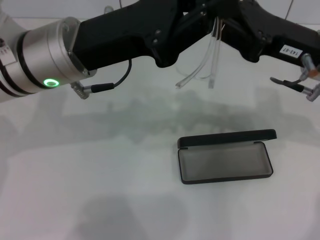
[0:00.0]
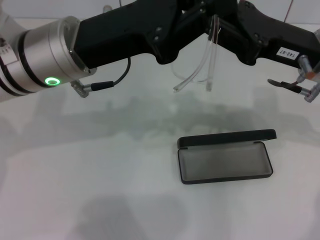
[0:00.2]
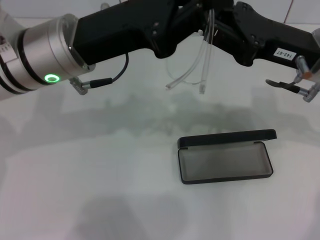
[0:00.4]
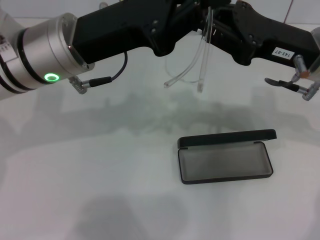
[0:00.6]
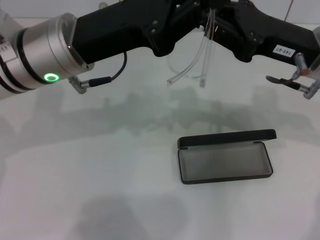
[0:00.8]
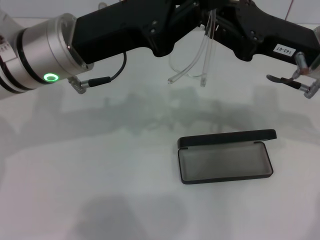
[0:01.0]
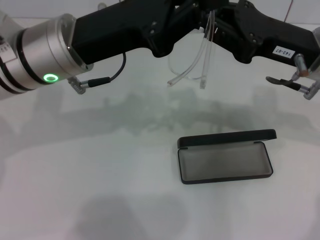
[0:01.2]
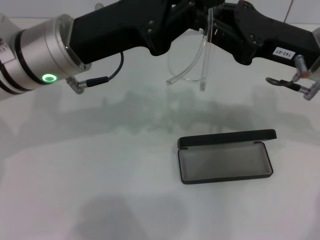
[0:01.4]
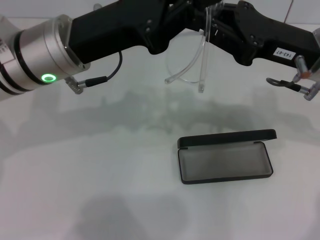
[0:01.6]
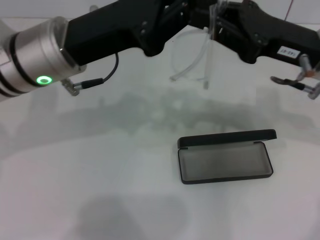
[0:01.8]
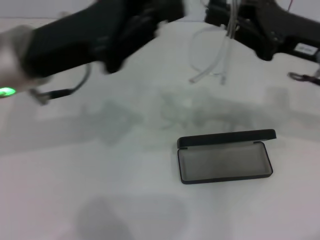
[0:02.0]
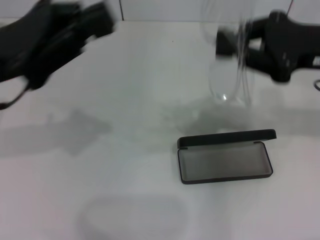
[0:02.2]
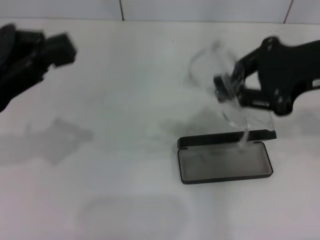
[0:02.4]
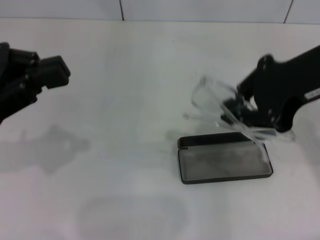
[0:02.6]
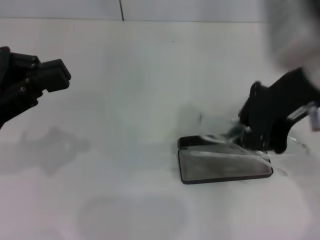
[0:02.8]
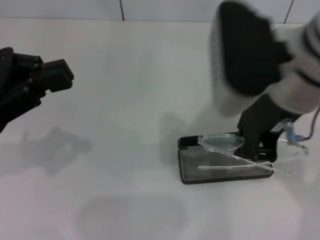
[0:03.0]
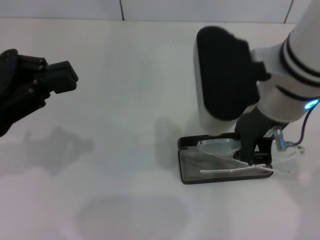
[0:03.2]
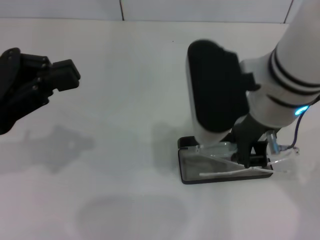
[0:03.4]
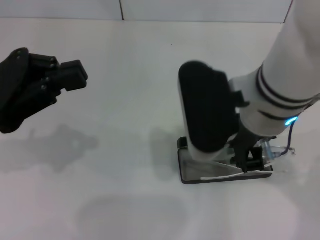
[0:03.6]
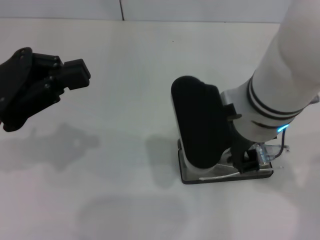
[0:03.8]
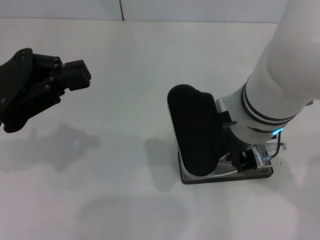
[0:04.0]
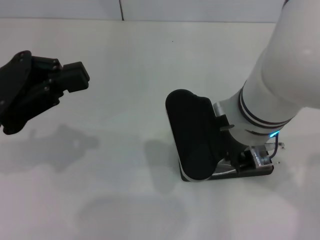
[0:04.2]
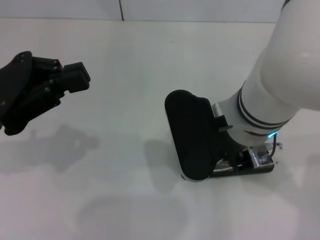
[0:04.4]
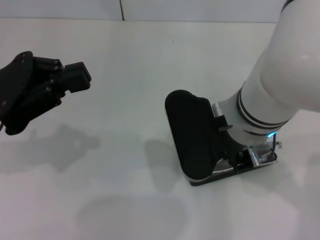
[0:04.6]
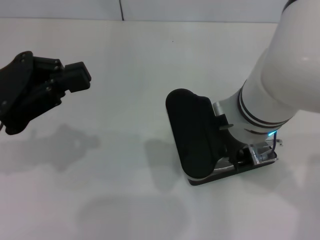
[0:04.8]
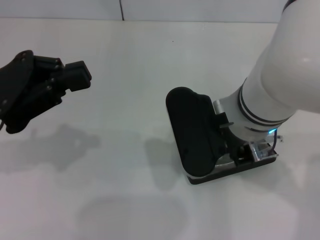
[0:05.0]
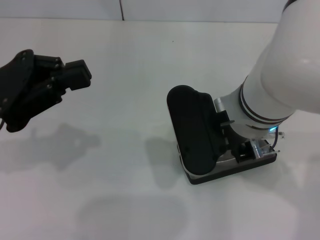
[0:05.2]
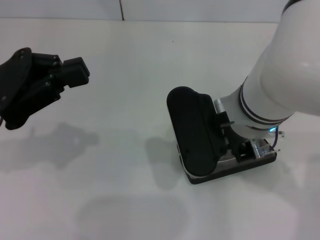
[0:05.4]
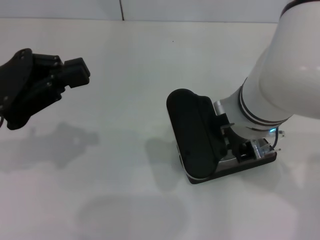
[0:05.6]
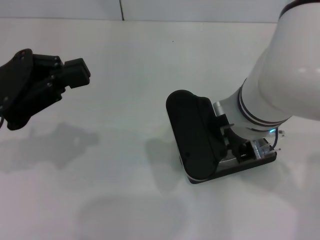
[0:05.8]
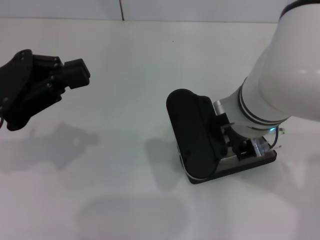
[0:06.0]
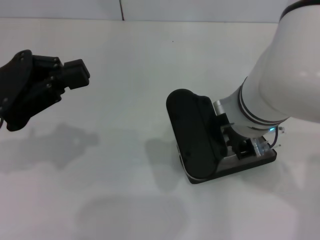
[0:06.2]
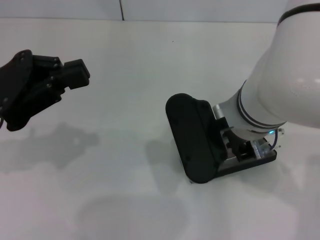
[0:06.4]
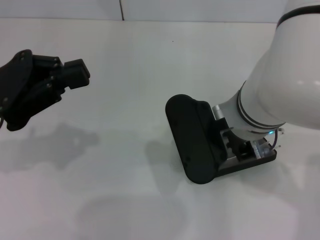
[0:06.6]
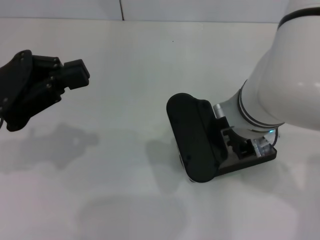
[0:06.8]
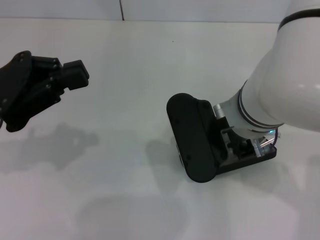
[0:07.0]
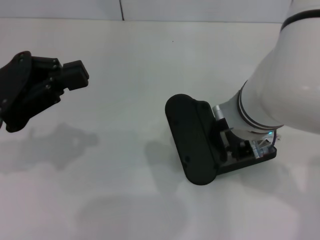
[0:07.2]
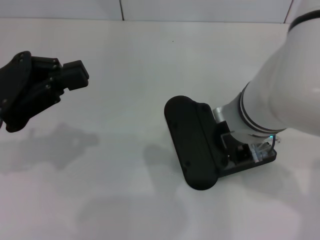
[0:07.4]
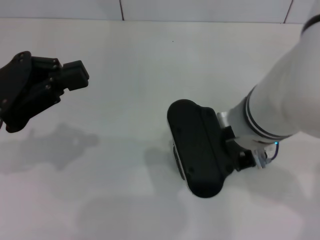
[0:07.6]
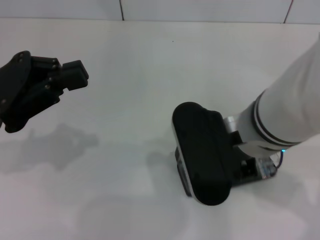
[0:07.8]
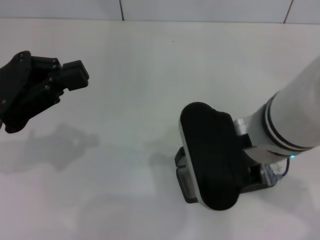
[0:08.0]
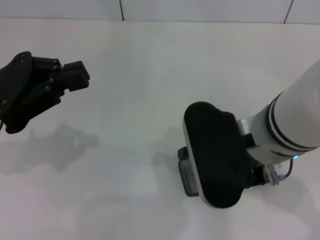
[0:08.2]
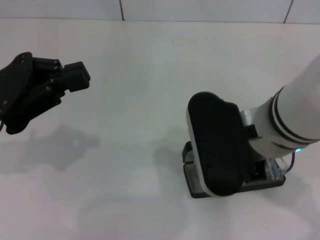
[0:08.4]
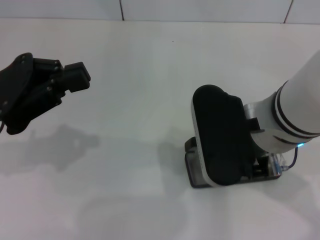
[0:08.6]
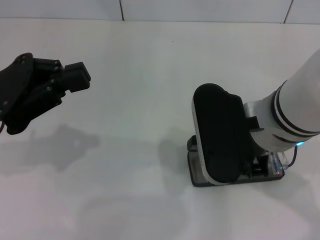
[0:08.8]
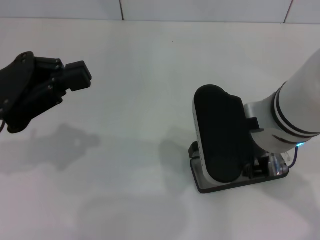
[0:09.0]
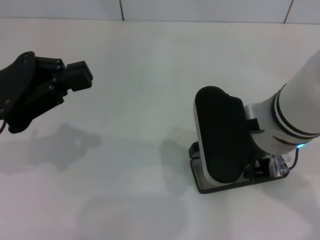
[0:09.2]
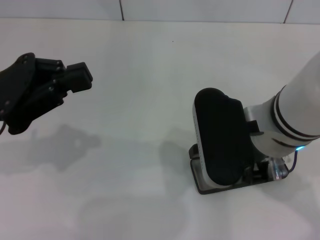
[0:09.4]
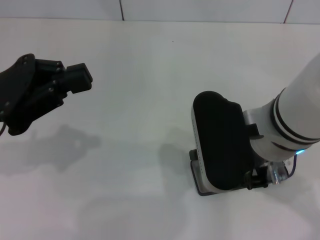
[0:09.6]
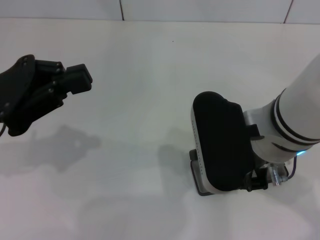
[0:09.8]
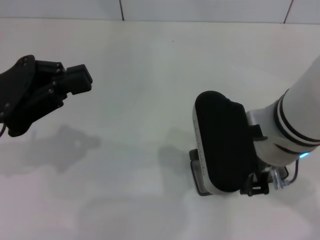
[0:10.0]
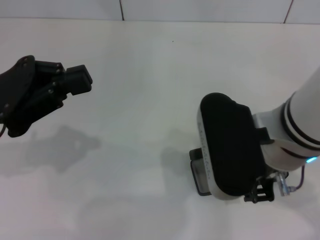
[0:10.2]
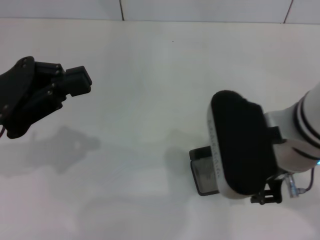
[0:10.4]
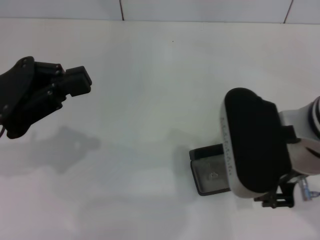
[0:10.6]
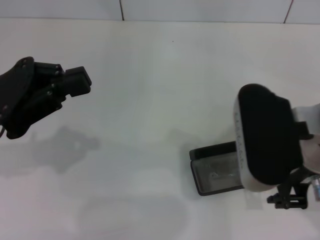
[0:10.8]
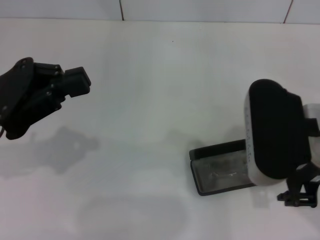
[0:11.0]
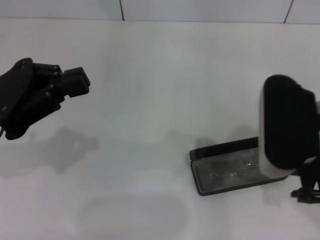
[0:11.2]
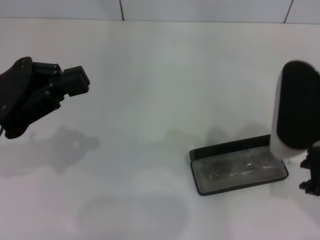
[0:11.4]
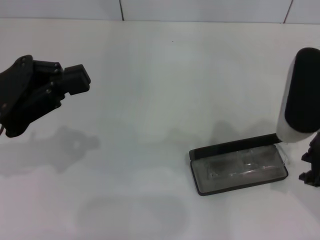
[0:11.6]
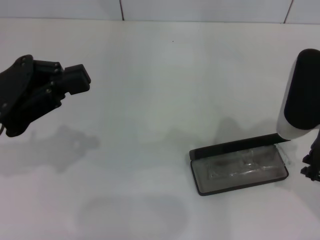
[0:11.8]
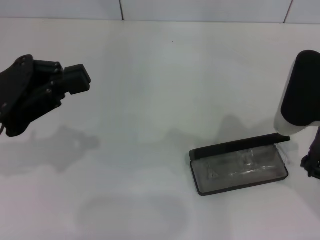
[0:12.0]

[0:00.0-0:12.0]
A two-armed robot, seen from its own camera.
0.0 to 1.6 s: The grippers stay close to where they were, moving slightly.
1.6 to 3.0 s: The left gripper is displaced to the left and backward by approximately 15 cm, while the right gripper is displaced to the left, upward and backward by about 15 cm.
3.0 to 4.4 s: The right gripper moves downward, roughly 5 cm.
4.4 to 10.4 s: The grippers stay close to where they were, moving slightly.
10.4 to 12.0 s: The right gripper travels to the right by approximately 10 cm.

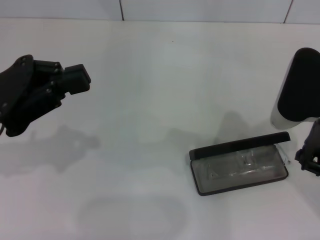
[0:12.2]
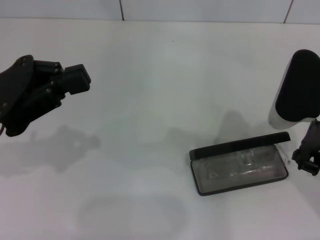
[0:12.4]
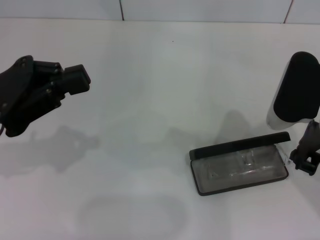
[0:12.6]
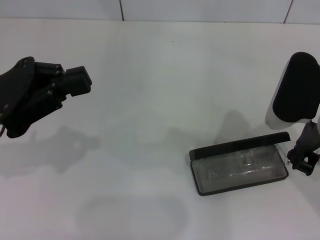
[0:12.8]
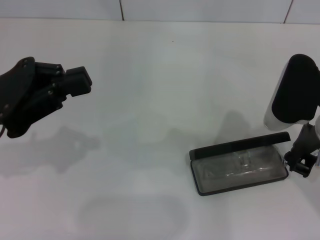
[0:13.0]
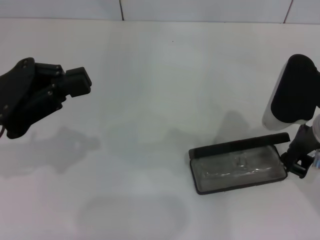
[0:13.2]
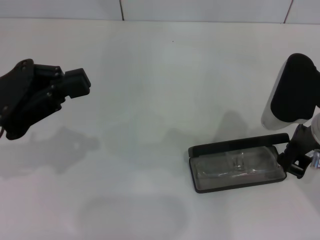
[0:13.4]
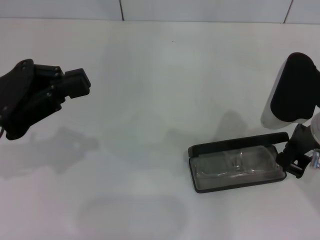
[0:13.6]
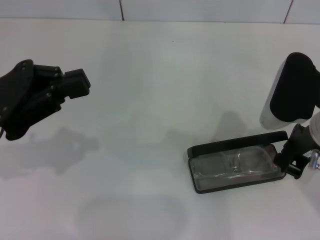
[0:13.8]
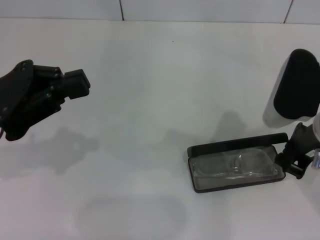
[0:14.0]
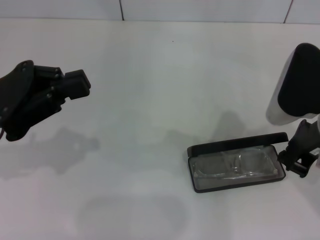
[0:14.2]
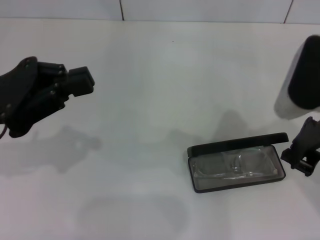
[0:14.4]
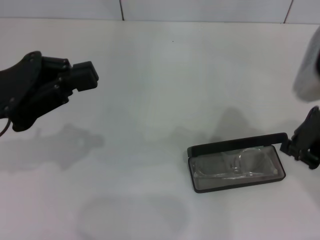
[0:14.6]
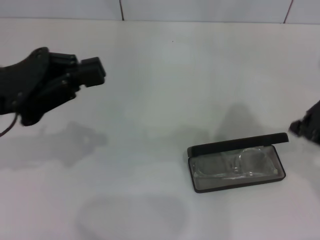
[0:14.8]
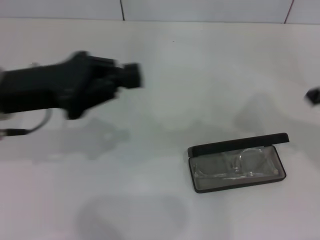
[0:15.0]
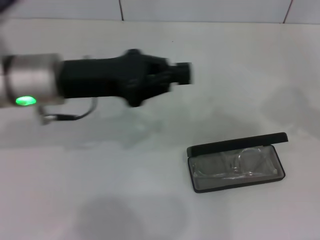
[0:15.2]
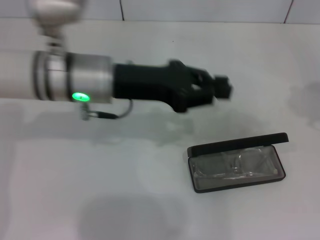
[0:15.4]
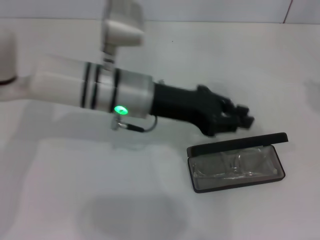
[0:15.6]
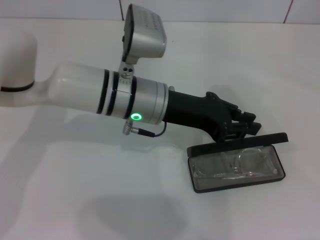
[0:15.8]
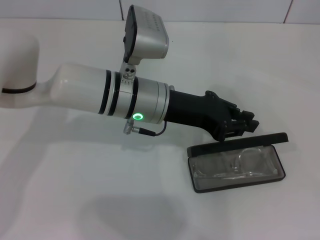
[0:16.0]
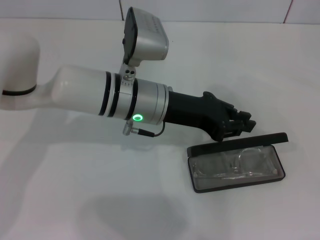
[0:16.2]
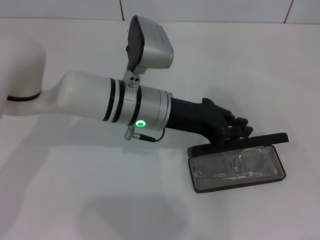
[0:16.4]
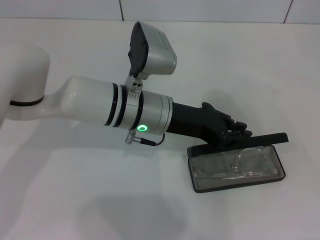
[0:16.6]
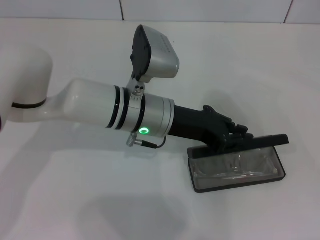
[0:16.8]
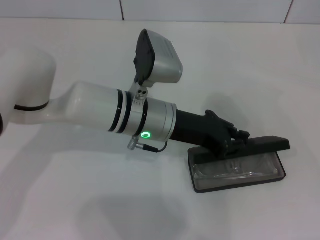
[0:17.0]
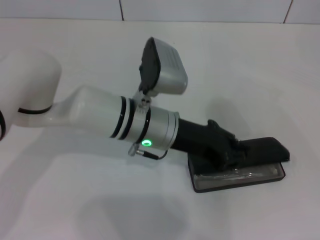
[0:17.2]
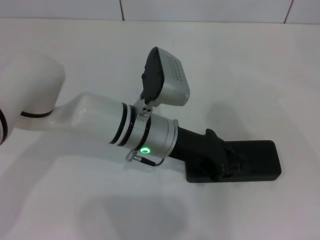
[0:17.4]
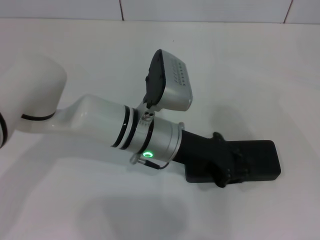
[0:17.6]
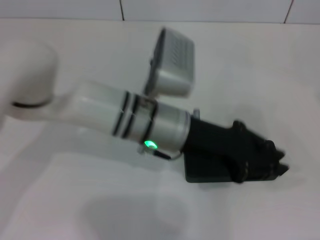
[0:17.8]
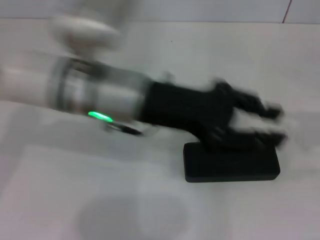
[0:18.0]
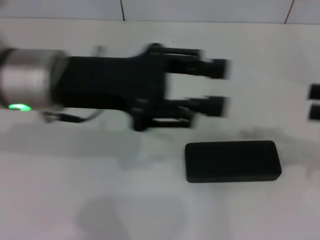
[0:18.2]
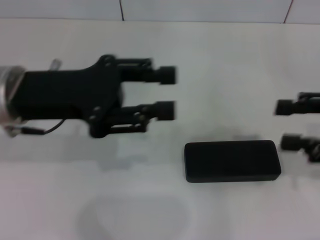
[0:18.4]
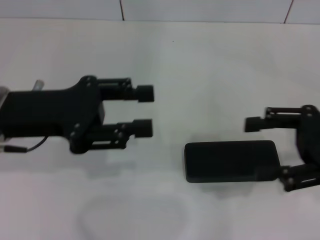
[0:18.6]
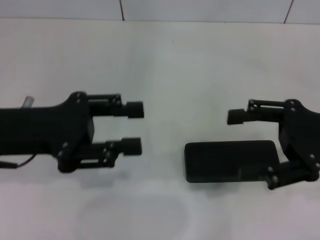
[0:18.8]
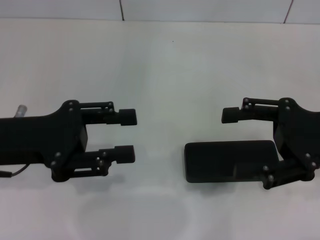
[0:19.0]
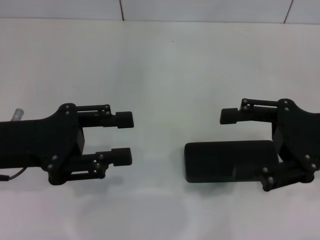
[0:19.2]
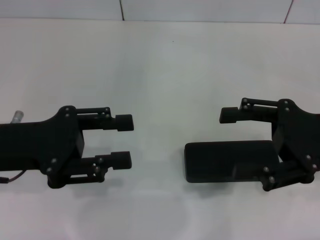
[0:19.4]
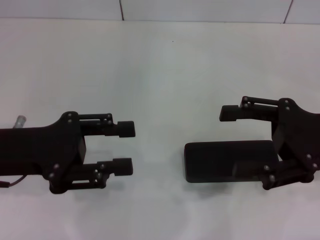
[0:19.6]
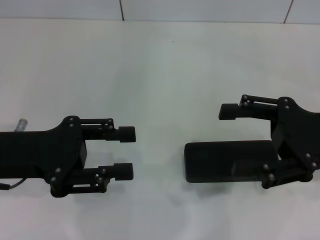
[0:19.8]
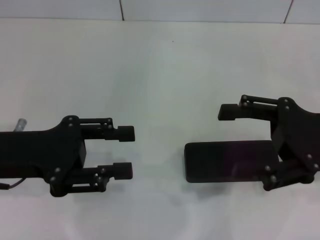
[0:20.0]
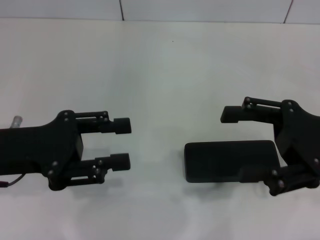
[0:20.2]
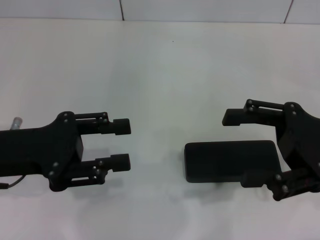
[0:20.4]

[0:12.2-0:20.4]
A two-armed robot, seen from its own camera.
Step, 12.2 to 14.2 s: Put the glasses into the case with your right hand.
Step, 14.6 to 17.2 s: Close the glasses case with your left hand.
12.2 to 13.8 s: The grippers make only small movements.
13.8 to 15.4 s: The left gripper goes roughly 20 cm to the right and forward; the right gripper goes some 20 cm to the right and upward.
15.4 to 17.2 s: The left gripper heads to the right and downward, covering some 10 cm, while the right gripper is displaced to the right by some 10 cm.
17.2 to 18.8 s: The left gripper is displaced to the left by about 20 cm, and opens, while the right gripper shifts about 20 cm to the left and downward, and opens.
18.8 to 20.4 s: There are only small adjustments of the grippers.

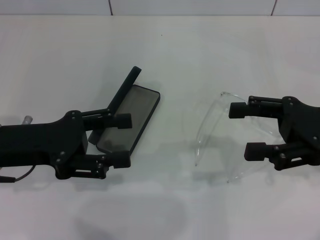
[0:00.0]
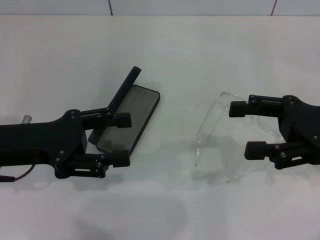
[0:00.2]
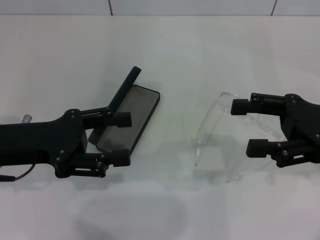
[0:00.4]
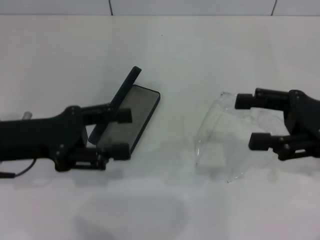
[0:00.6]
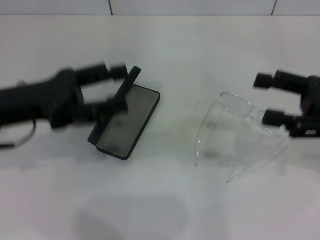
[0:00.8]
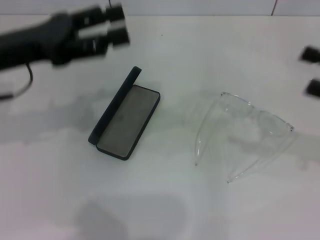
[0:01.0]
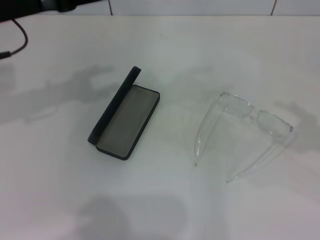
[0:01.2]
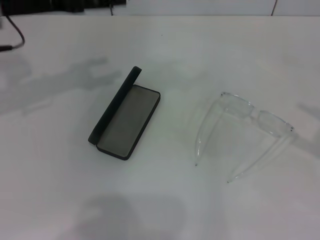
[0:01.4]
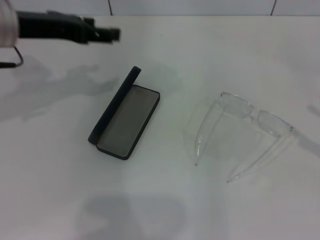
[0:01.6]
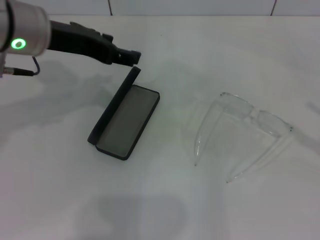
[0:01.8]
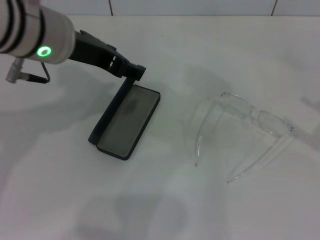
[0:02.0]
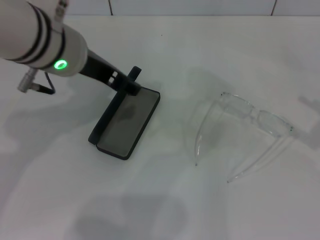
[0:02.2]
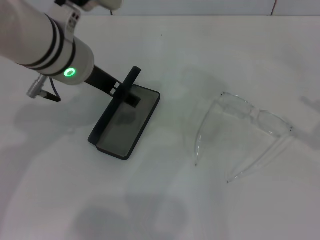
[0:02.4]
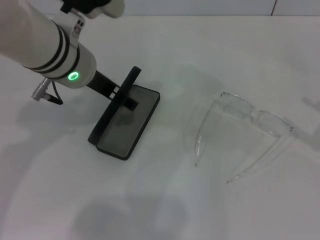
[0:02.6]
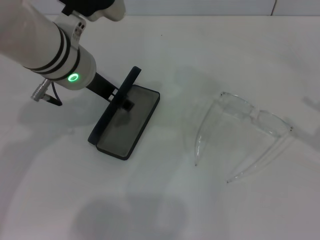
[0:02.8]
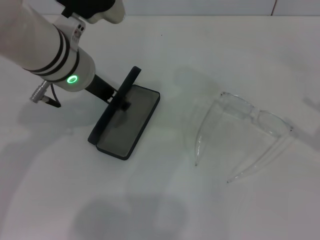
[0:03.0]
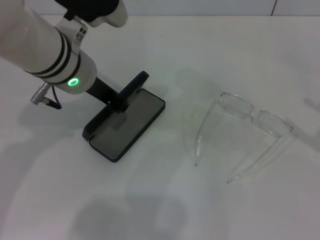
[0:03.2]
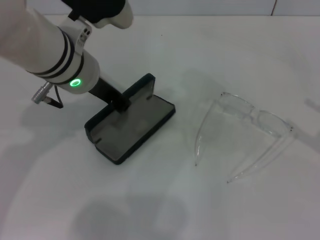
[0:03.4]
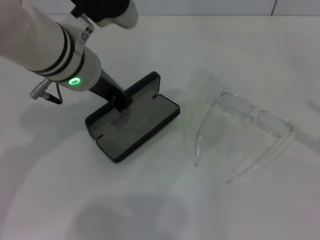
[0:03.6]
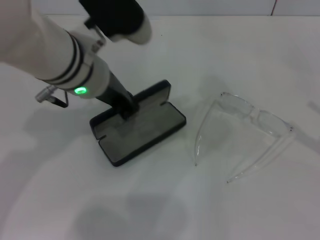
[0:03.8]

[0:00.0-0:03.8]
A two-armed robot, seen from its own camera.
Step, 0.0 to 3.4 s: Grab the glasses case with your left hand.
0.0 to 1.2 s: The left gripper is displaced upward and forward by some 15 cm. The right gripper moves to the right, some 10 cm.
1.2 to 2.6 s: The left gripper shifts about 10 cm to the right.
2.6 to 3.8 s: The left gripper closes its fingers.
